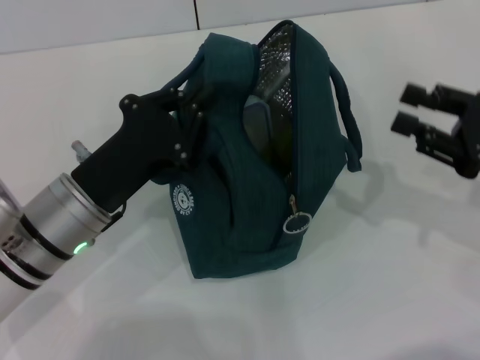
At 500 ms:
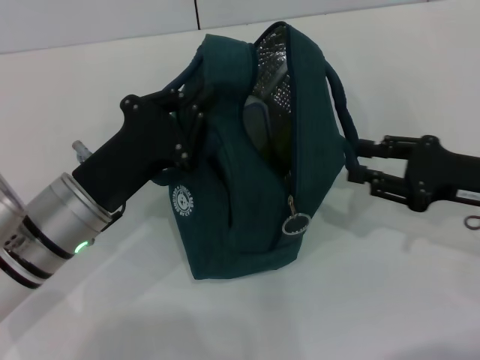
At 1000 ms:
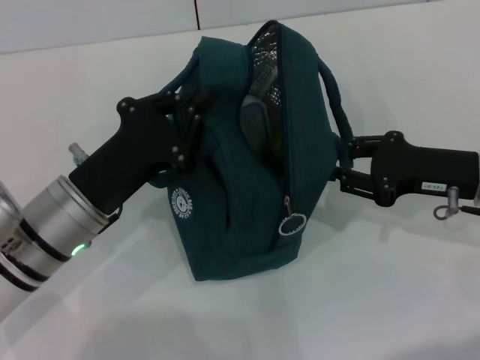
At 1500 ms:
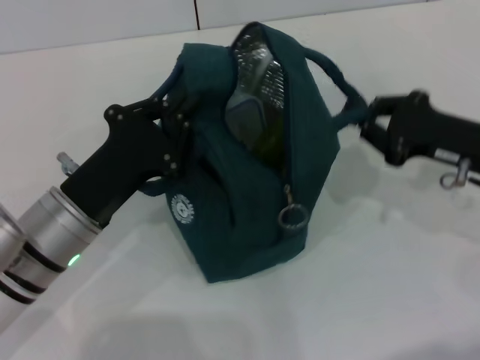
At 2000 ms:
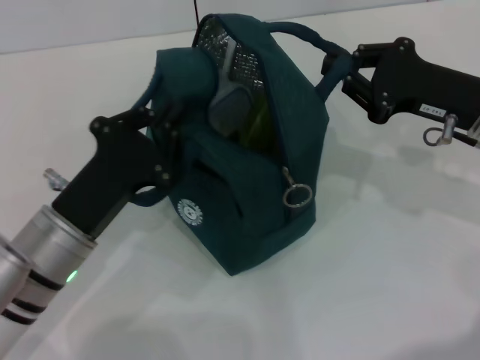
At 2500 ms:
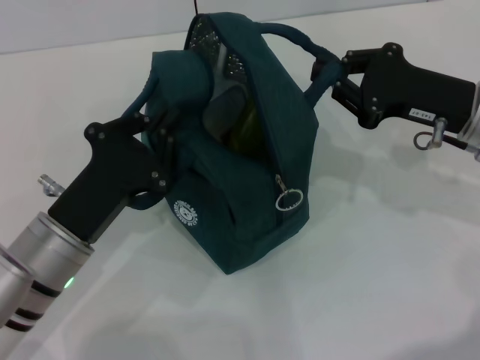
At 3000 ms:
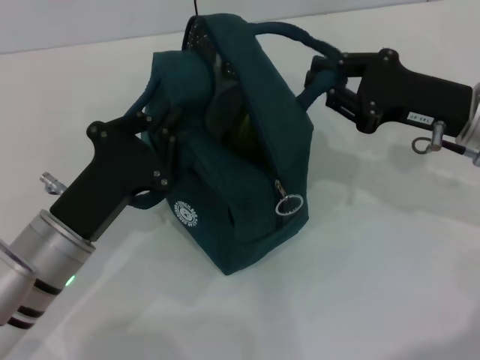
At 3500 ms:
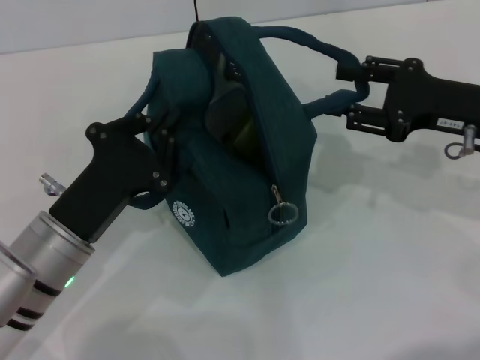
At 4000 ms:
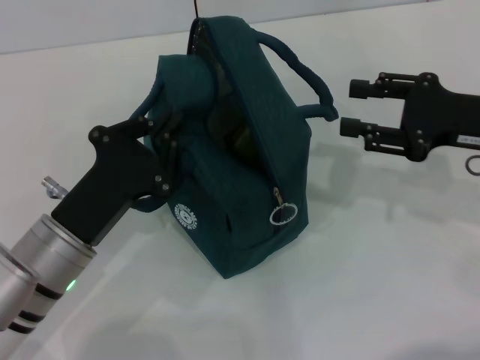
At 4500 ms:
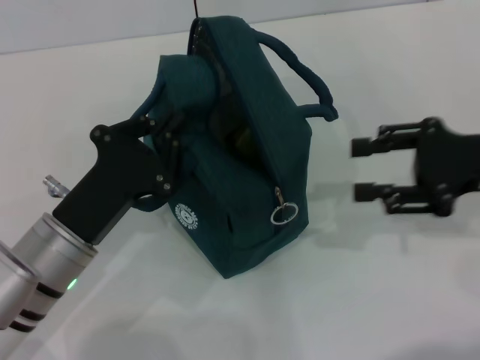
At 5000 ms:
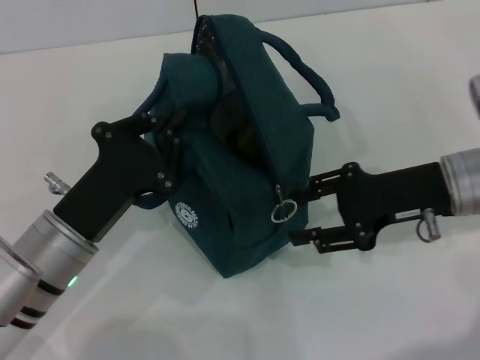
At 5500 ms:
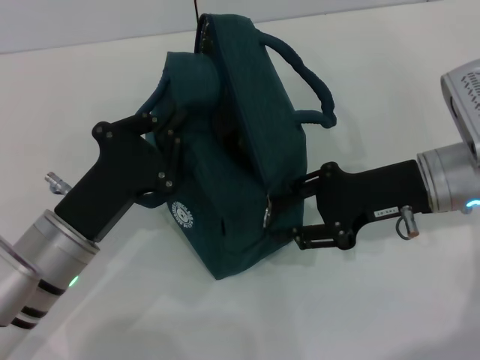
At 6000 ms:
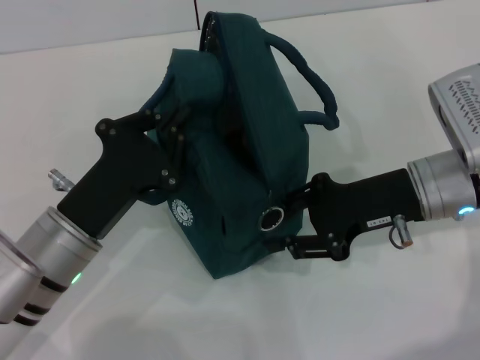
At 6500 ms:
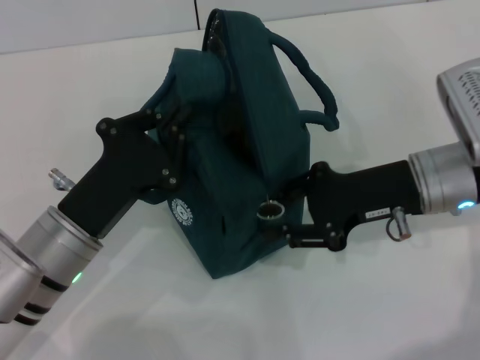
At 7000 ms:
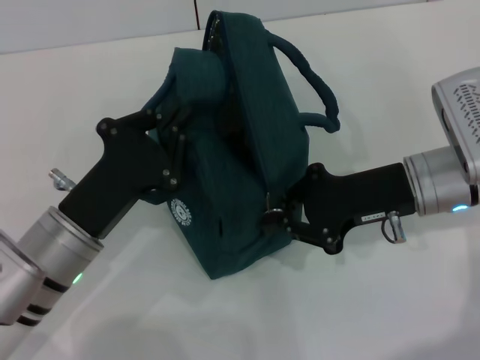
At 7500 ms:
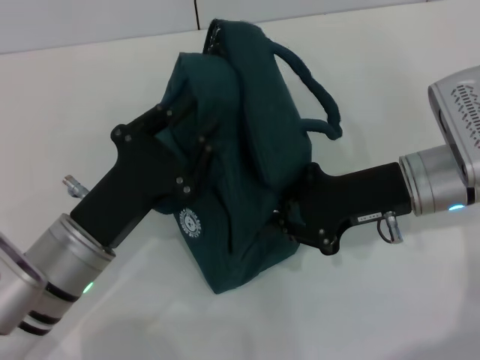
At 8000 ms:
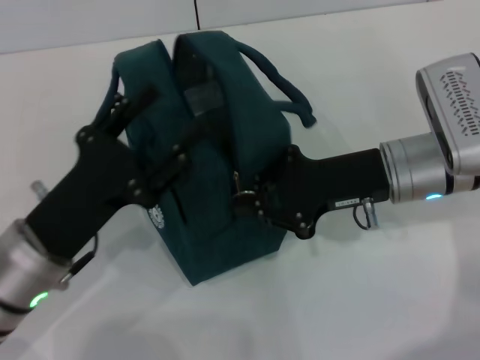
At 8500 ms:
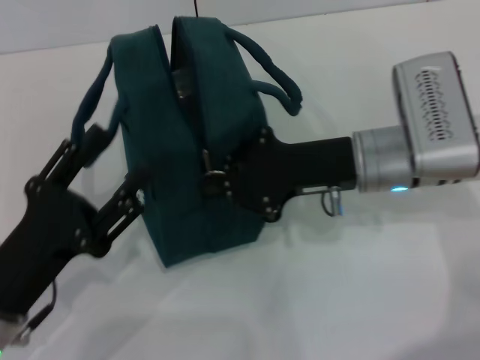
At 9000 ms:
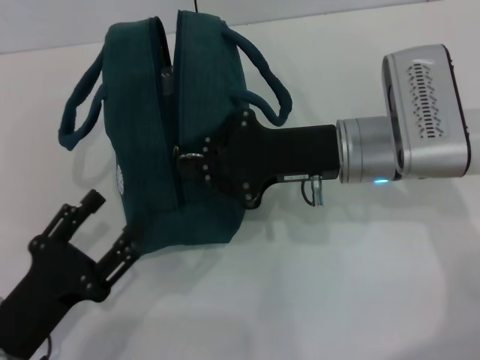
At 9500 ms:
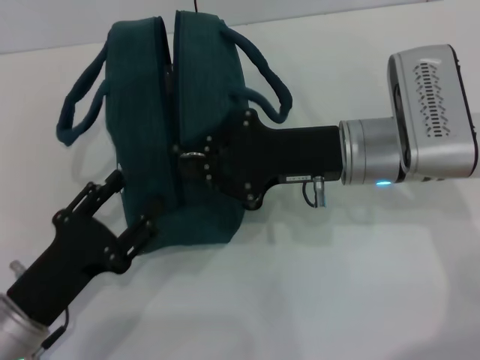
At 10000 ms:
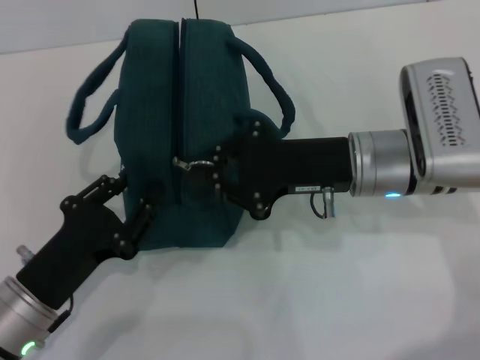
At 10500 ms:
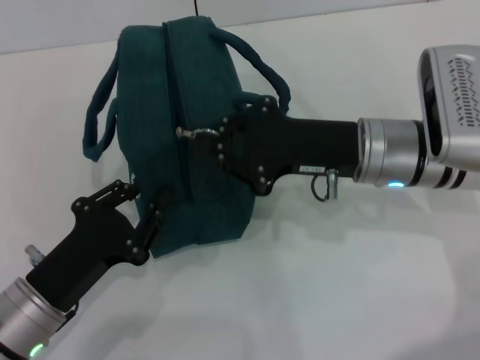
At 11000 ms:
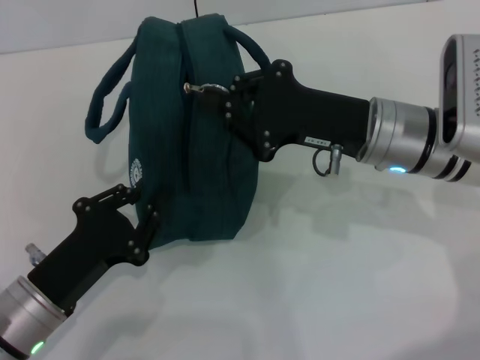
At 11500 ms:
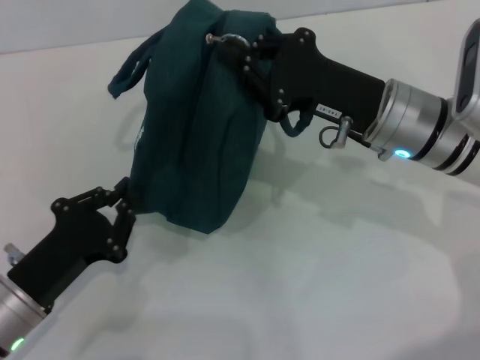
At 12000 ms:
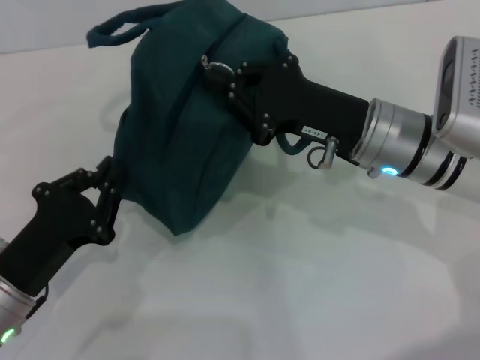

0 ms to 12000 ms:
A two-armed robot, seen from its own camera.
Step, 0 ms to 3500 ms: Hold the lunch bag with your right hand.
0 ms to 2000 ms: The right gripper is displaced forward and to the left by some 10 cm, and closes.
2000 ms to 4000 ms: The right gripper opens up.
4000 ms to 6000 ms: The right gripper is displaced to the left by some 10 cm.
6000 ms to 8000 ms: The left gripper opens. Meanwhile the right gripper closes up.
10000 ms to 12000 ms: The left gripper closes up.

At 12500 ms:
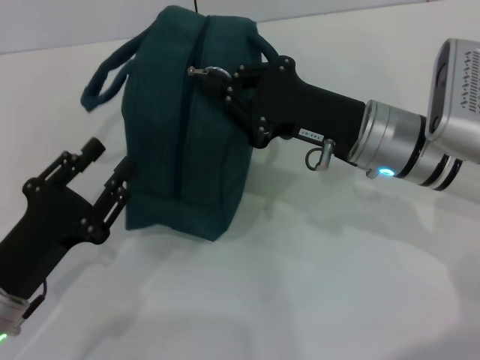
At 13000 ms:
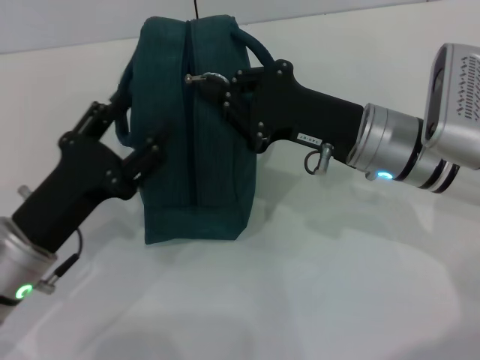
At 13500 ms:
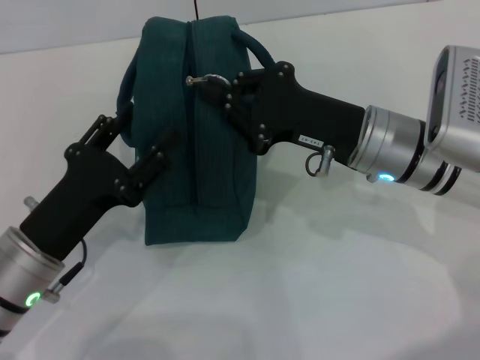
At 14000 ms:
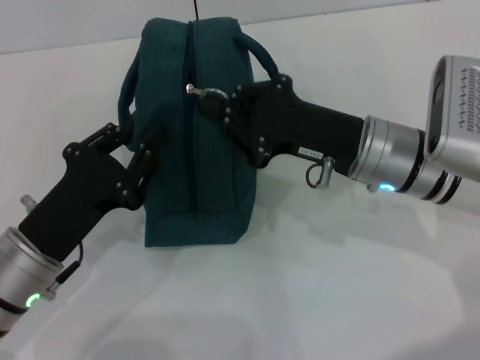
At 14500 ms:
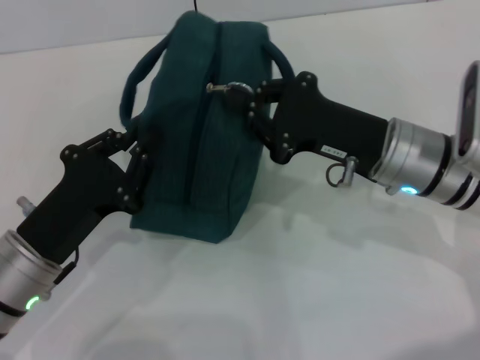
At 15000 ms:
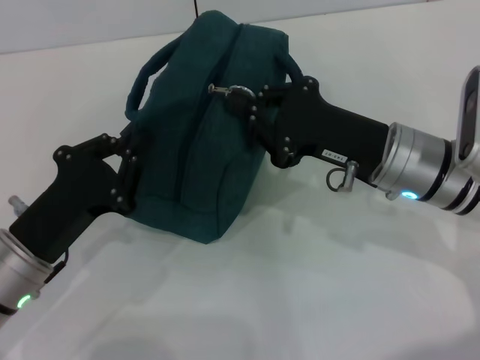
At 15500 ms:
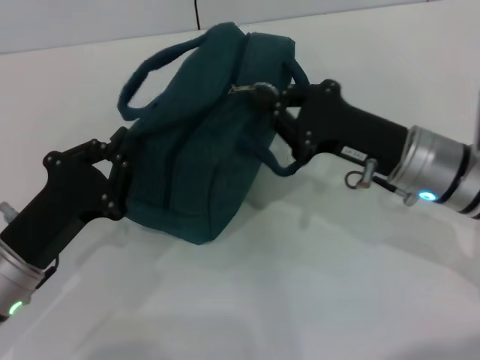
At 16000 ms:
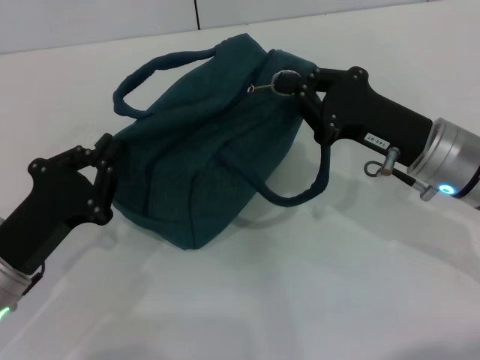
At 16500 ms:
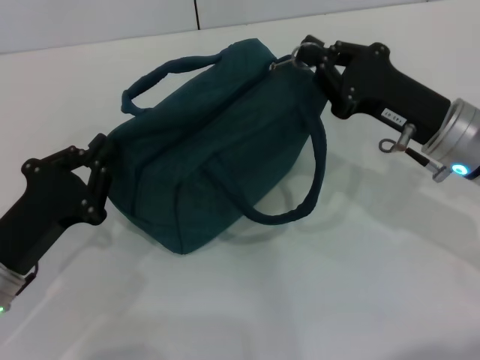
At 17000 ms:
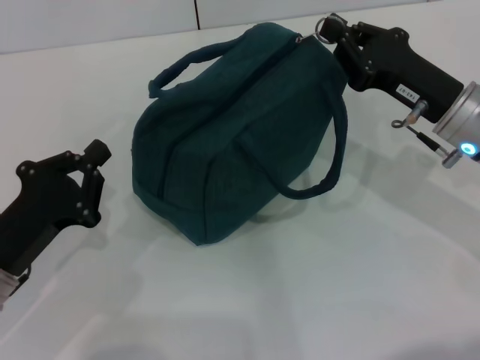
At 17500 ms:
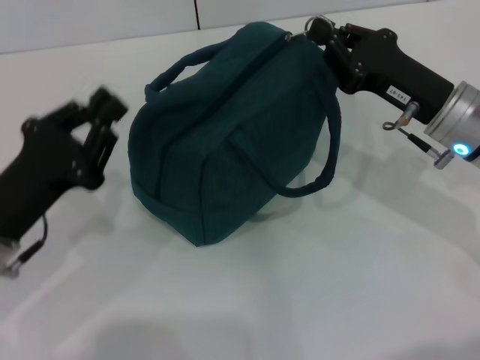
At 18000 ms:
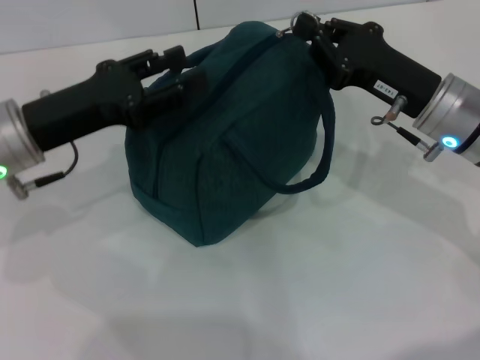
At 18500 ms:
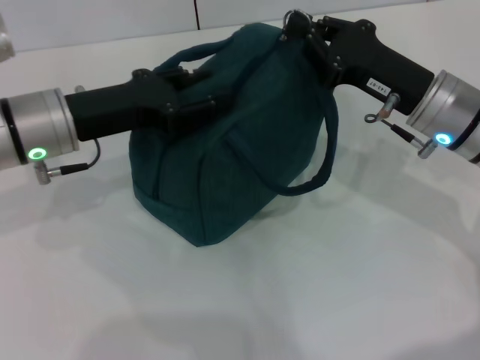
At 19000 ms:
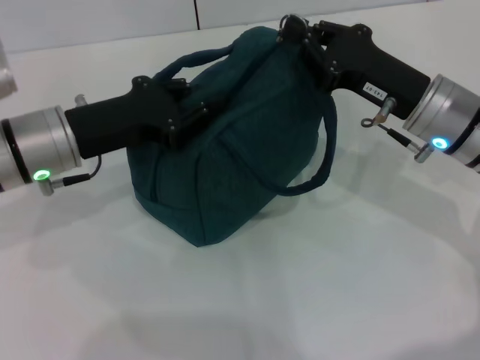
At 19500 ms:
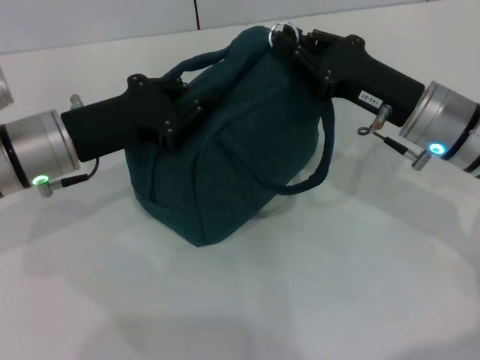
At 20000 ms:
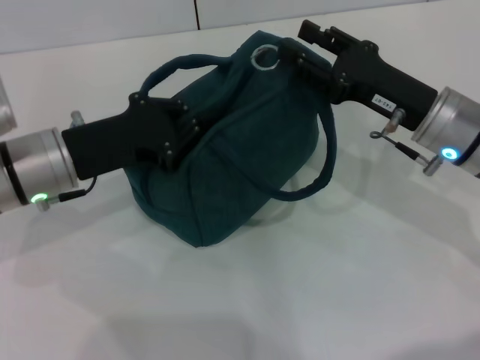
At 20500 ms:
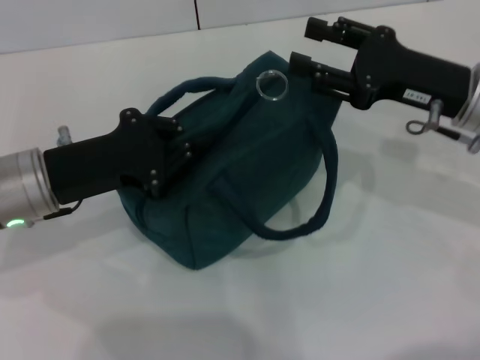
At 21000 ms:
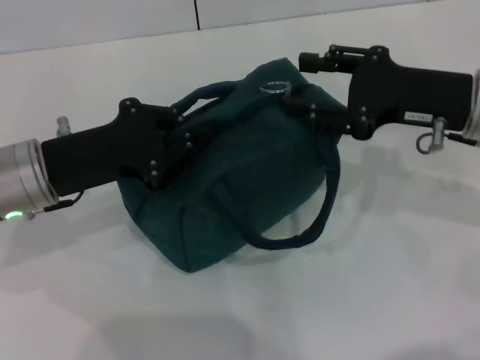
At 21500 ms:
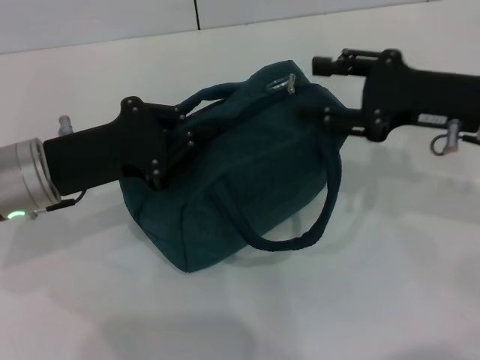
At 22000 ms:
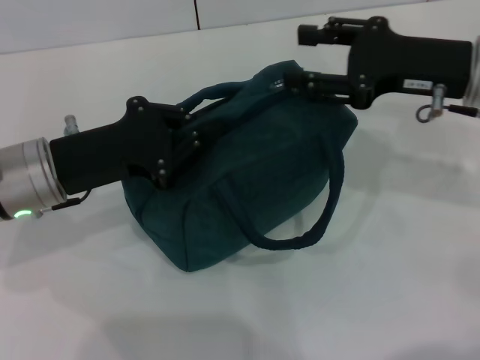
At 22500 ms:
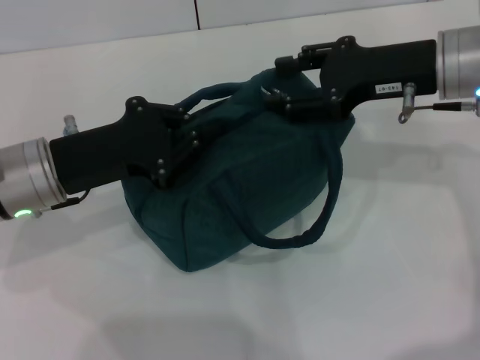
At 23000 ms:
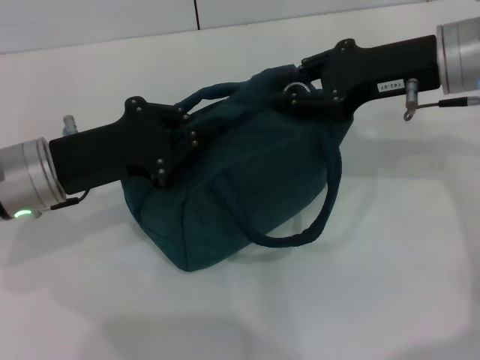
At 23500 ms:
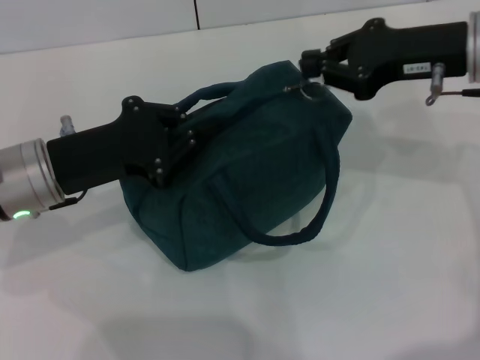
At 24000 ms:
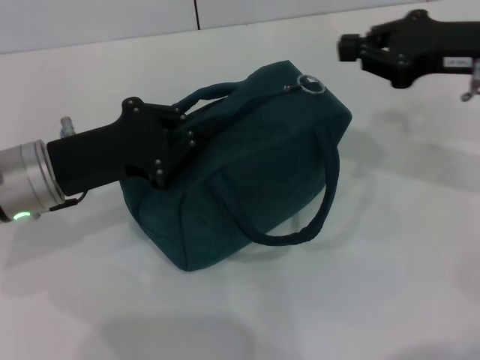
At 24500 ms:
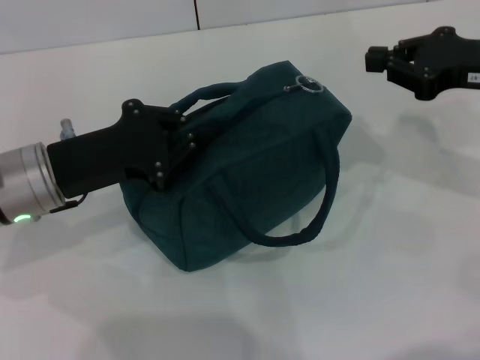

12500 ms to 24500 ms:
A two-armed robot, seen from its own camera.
12500 ms to 14500 ms: The left gripper opens and closes again.
14500 ms to 16500 ms: The right gripper goes roughly 5 cm to the right.
16500 ms to 18500 ms: The left gripper travels forward, upward and to the right by some 15 cm, and opens its fingers.
18500 ms to 20500 ms: The right gripper opens its fingers. Meanwhile the left gripper changes place by roughly 5 cm, and closes.
20500 ms to 22500 ms: The right gripper moves upward, roughly 5 cm.
22500 ms to 24500 ms: The right gripper travels to the right by roughly 10 cm, and closes up.

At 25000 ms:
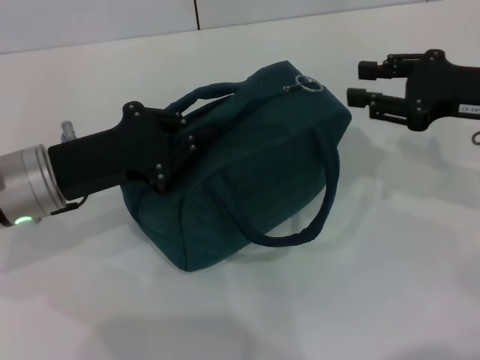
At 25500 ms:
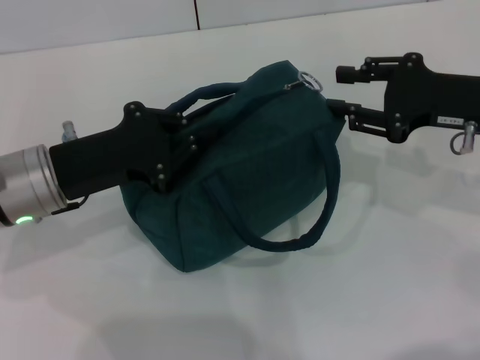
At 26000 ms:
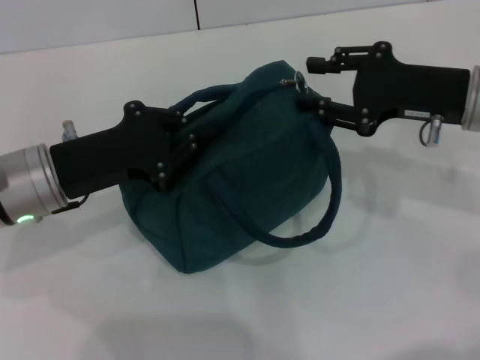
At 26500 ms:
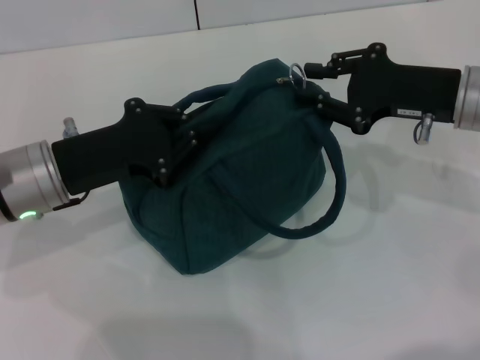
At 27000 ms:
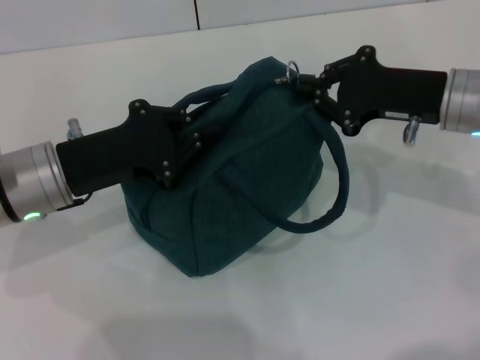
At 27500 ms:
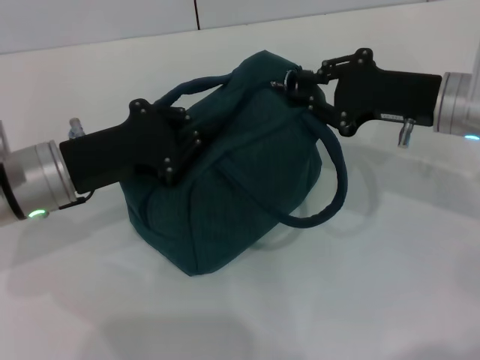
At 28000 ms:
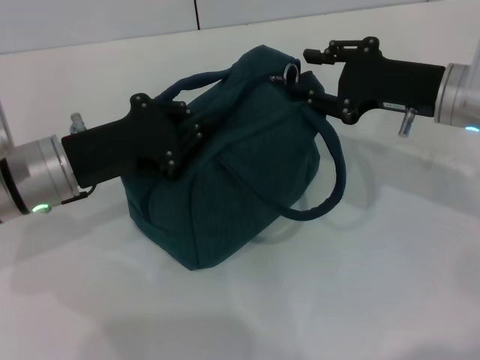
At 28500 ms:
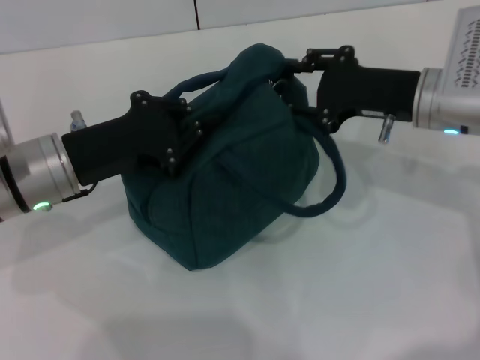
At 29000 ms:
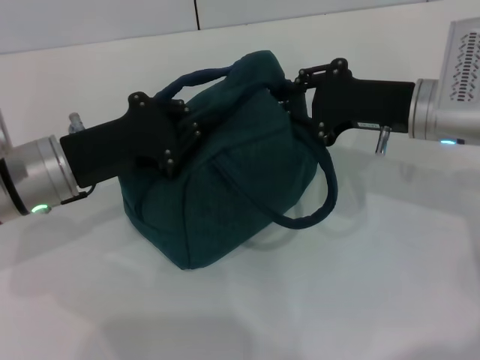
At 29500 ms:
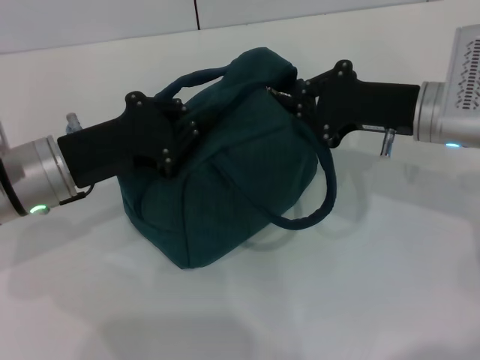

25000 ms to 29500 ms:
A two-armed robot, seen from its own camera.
25000 ms to 27000 ms: The right gripper shifts approximately 5 cm to the left.
27000 ms to 29500 ms: The right gripper opens, then closes again.
